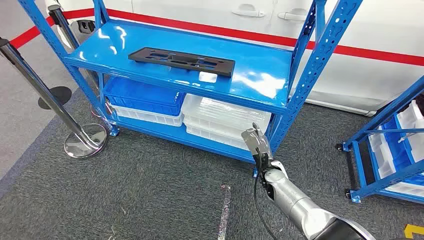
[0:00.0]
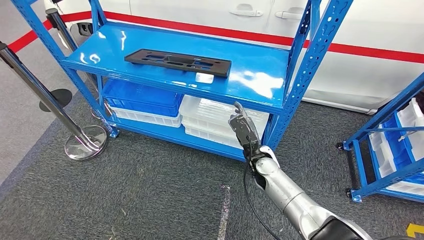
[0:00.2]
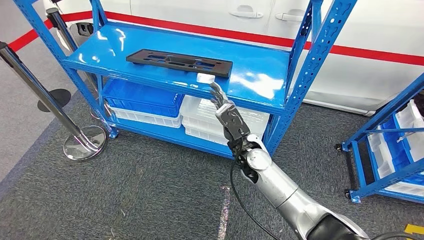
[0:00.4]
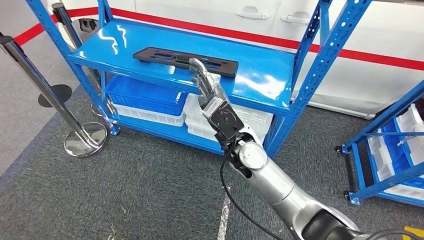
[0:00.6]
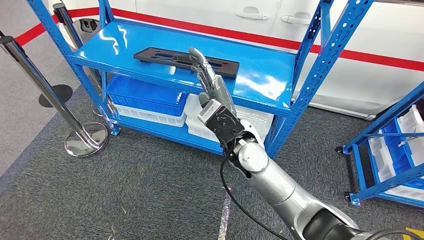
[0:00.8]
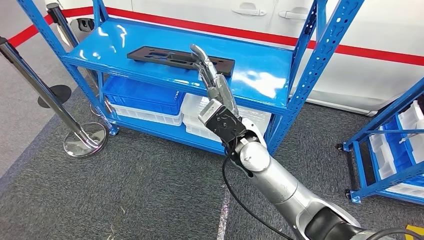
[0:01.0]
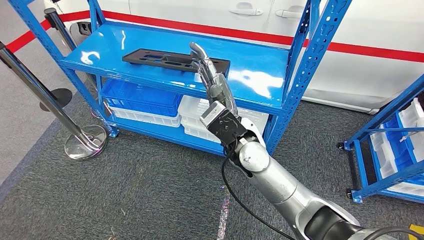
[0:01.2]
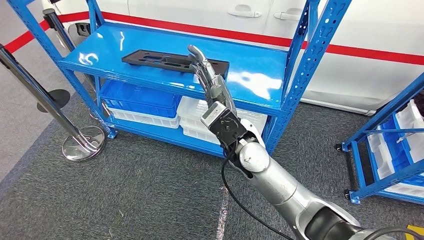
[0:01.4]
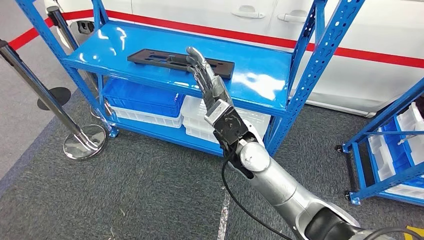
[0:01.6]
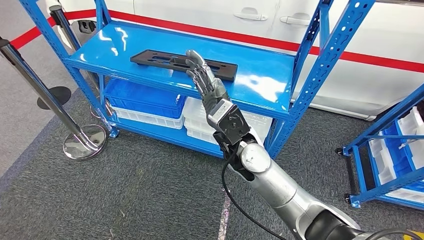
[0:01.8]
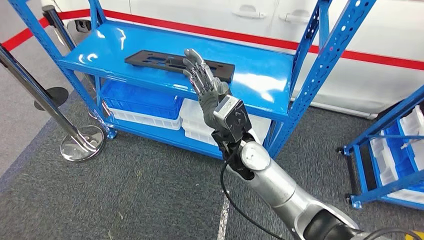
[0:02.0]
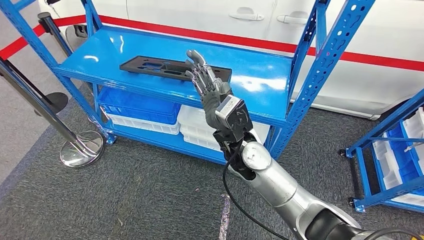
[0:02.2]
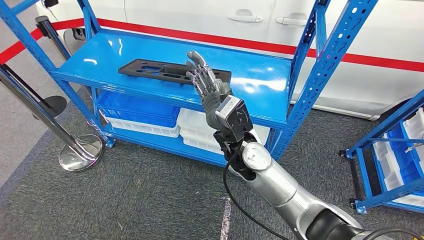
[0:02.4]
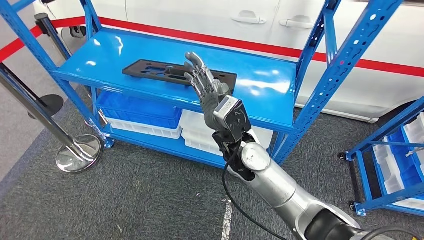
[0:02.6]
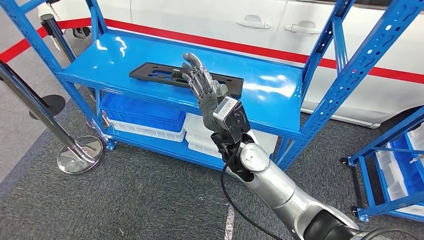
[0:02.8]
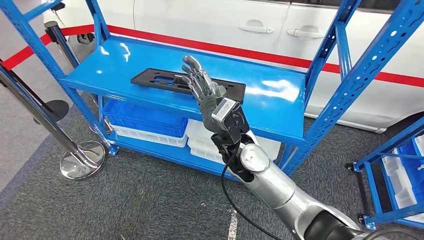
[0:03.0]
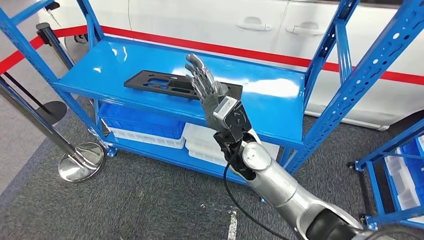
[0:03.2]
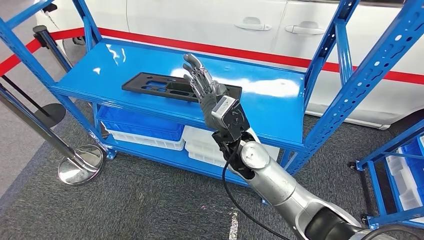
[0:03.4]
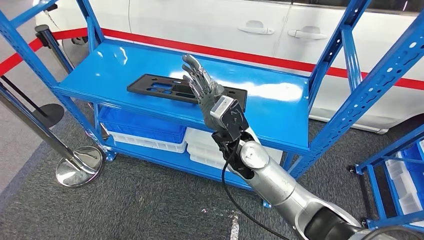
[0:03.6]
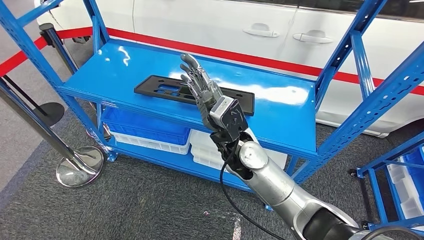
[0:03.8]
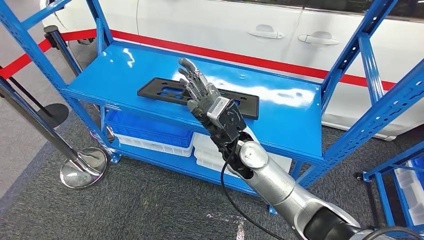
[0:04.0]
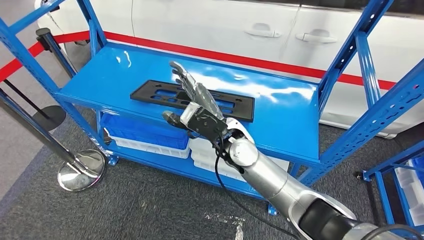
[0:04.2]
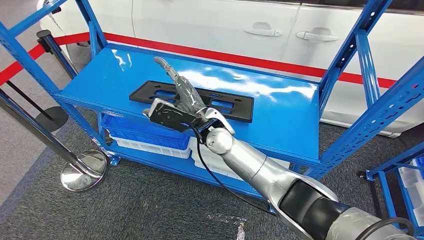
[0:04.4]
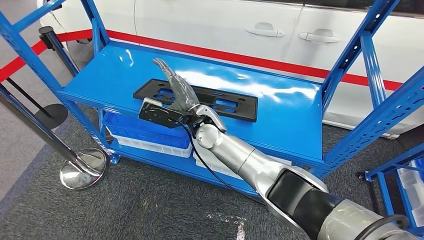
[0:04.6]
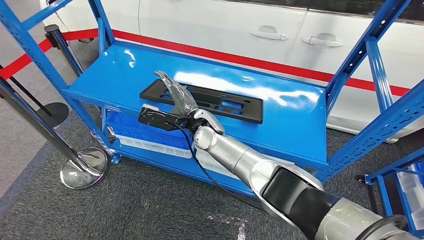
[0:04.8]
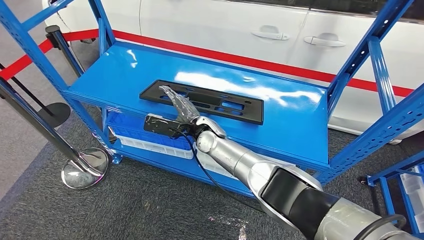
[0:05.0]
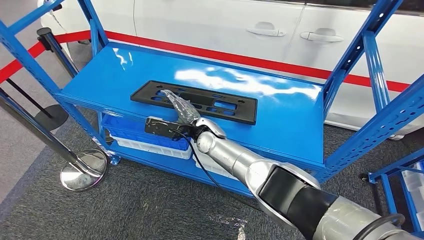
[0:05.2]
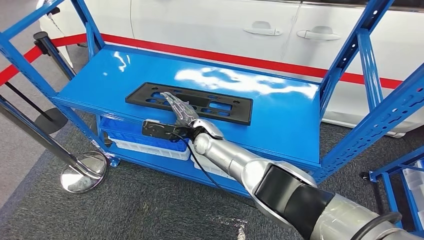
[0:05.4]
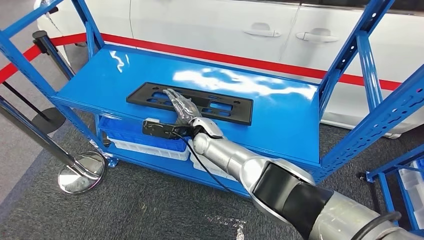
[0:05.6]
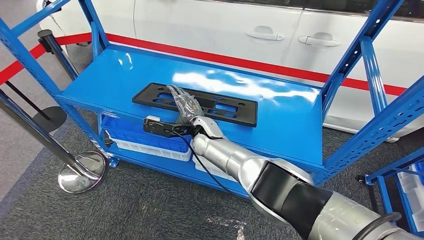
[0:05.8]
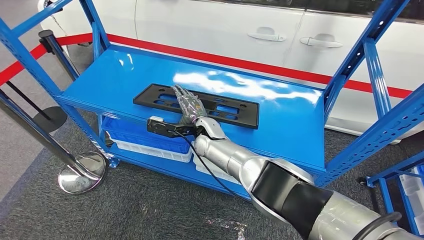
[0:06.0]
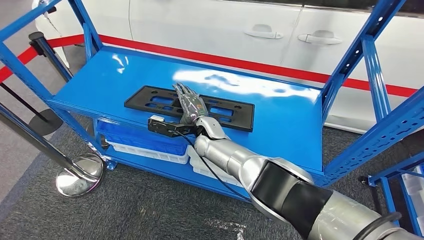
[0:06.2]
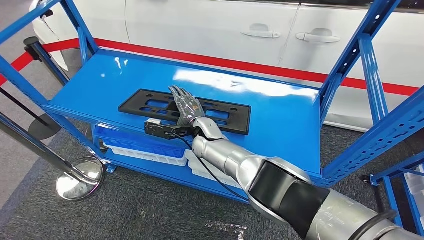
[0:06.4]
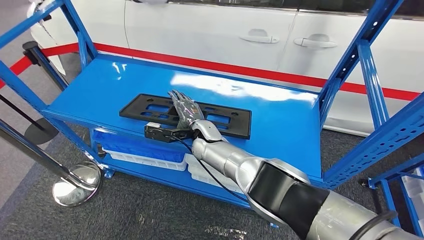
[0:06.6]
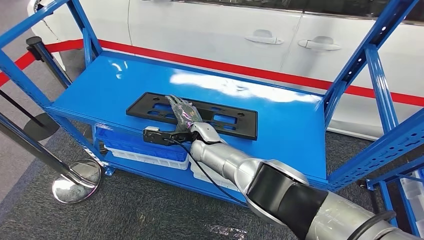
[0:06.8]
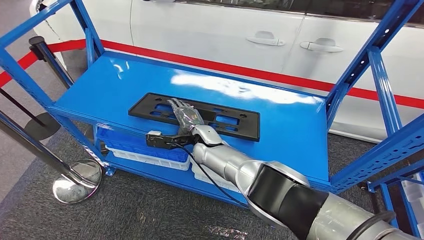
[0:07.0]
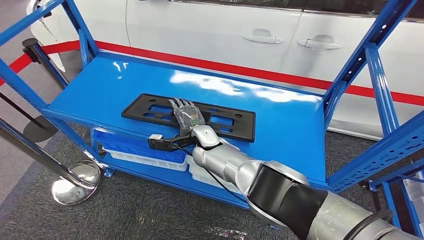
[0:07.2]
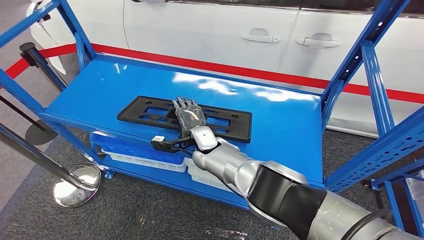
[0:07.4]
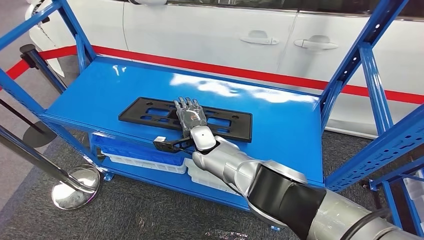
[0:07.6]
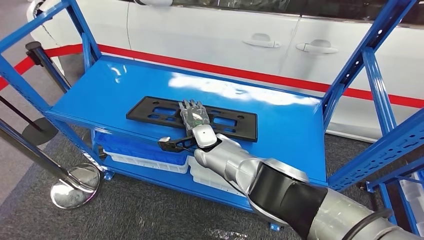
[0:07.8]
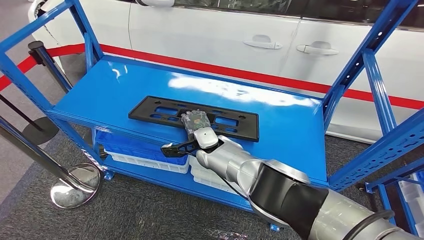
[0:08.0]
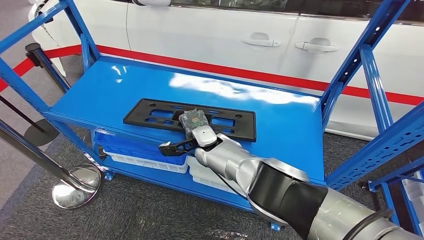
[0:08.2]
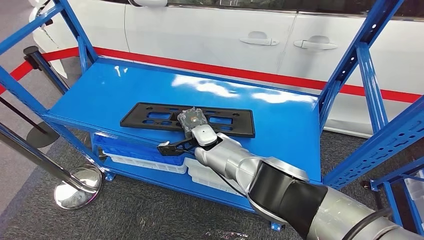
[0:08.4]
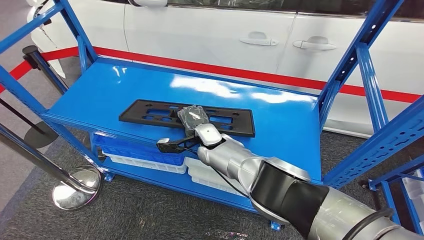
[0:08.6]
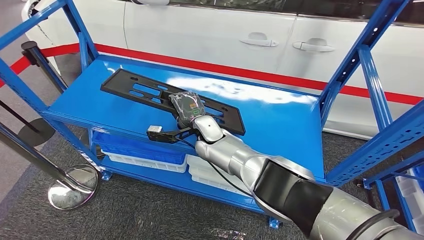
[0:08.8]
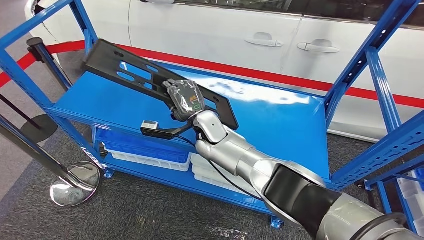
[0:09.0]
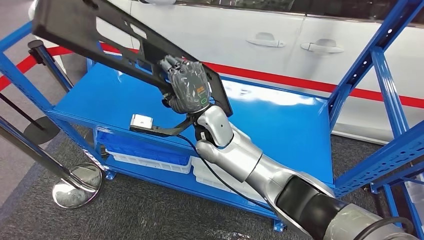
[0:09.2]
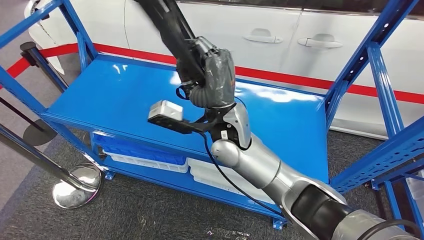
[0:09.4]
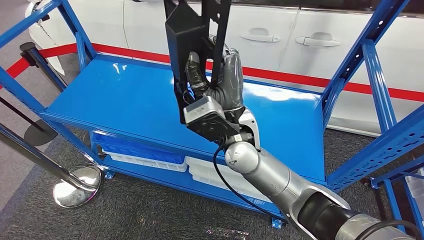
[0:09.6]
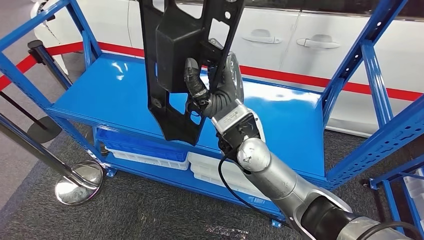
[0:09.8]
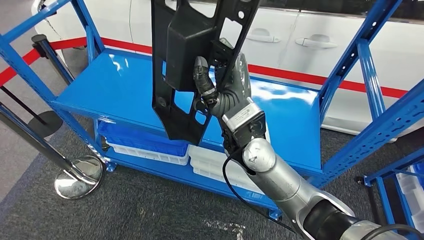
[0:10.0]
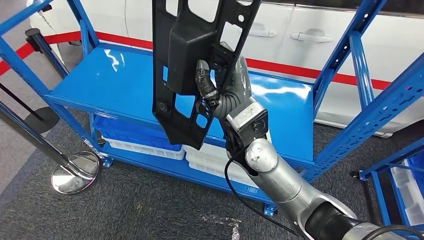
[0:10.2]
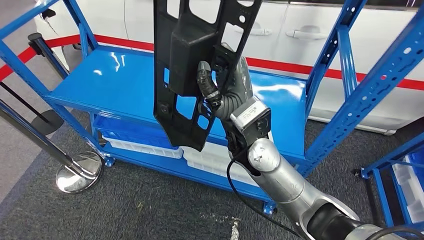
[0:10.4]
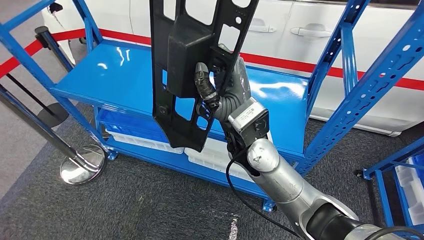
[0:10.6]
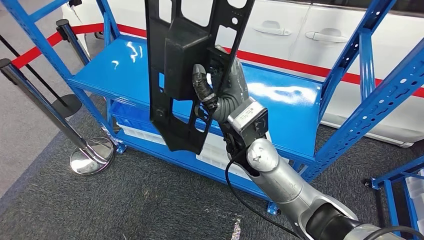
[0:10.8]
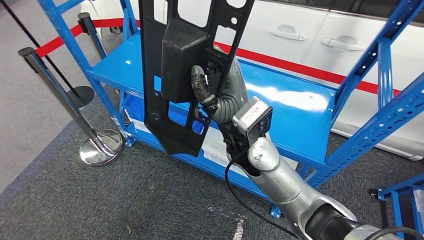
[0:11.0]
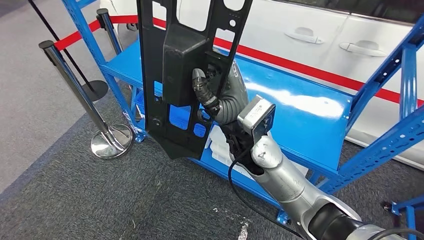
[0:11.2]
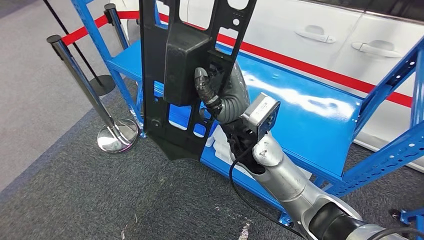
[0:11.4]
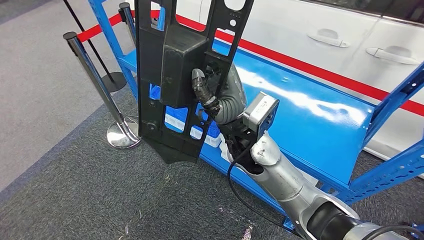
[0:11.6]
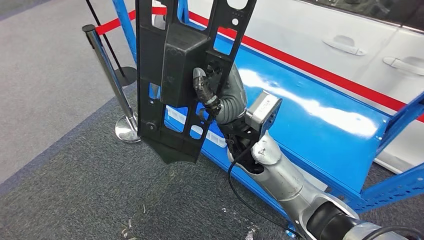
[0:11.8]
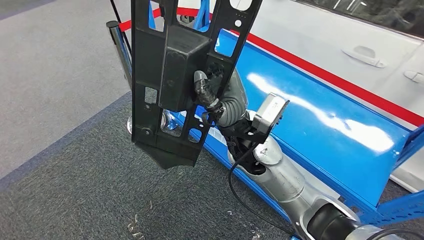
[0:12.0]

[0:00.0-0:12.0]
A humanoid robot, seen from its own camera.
Step, 0:00.0 to 0:11.4: Pick up the large parts from the shelf.

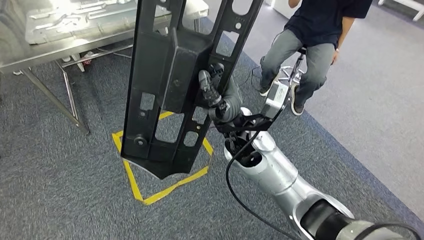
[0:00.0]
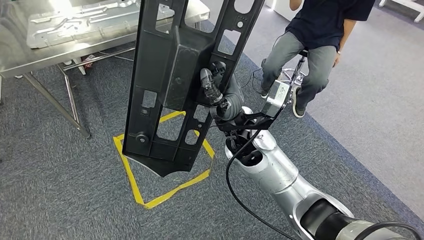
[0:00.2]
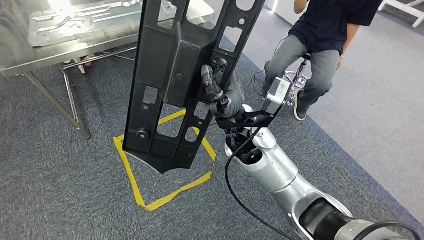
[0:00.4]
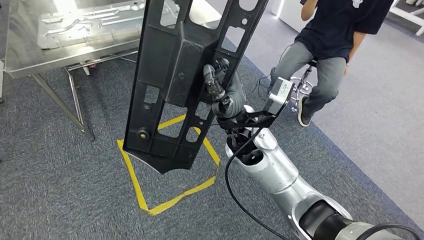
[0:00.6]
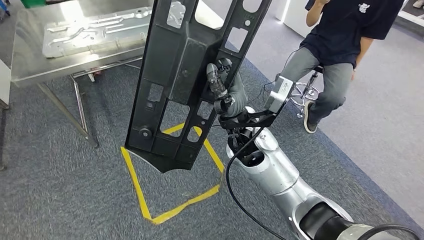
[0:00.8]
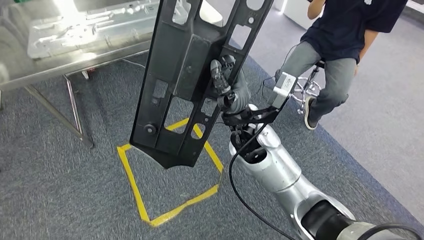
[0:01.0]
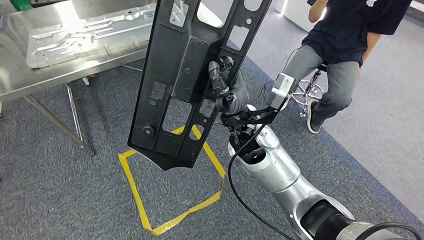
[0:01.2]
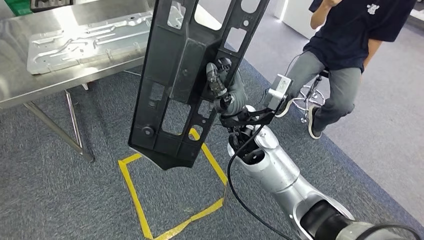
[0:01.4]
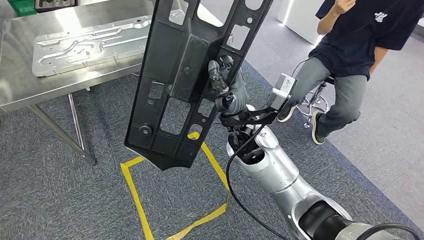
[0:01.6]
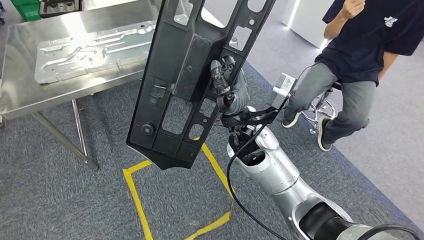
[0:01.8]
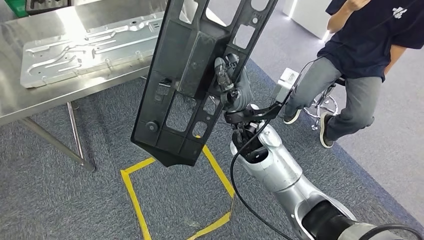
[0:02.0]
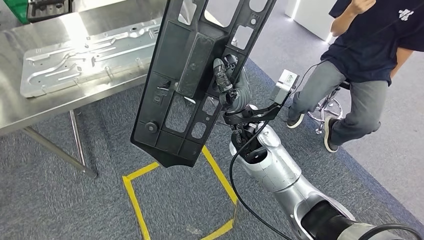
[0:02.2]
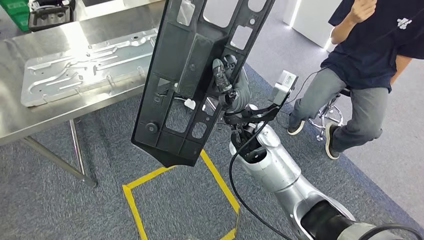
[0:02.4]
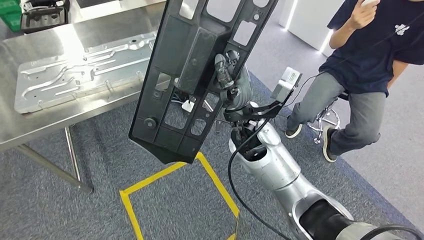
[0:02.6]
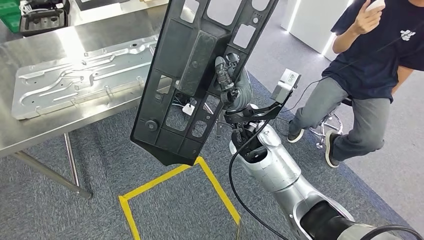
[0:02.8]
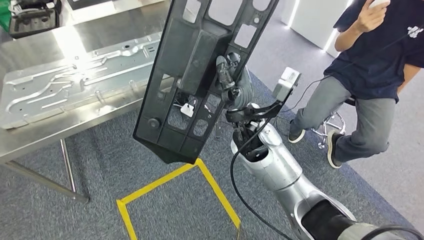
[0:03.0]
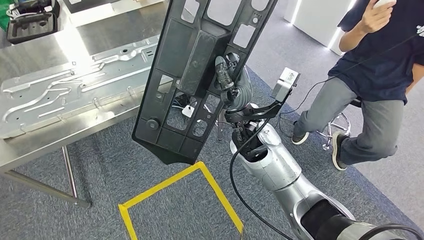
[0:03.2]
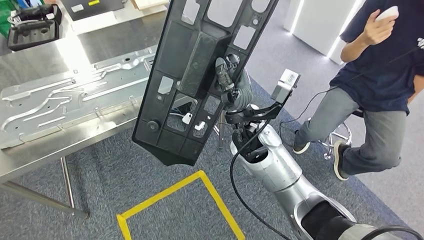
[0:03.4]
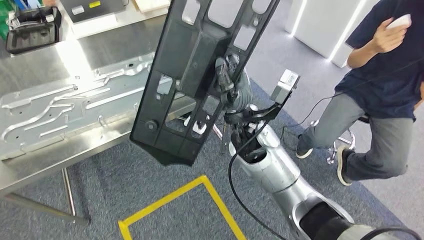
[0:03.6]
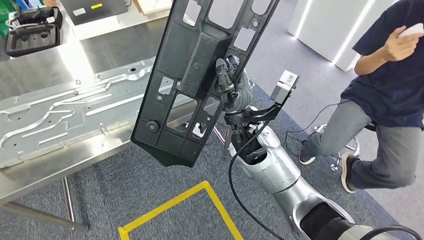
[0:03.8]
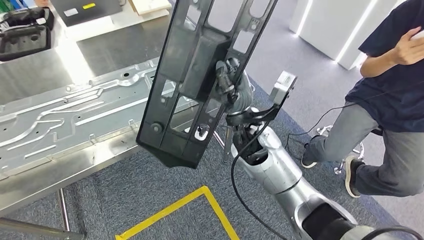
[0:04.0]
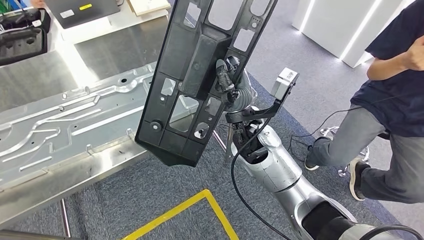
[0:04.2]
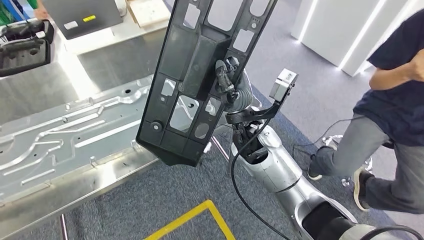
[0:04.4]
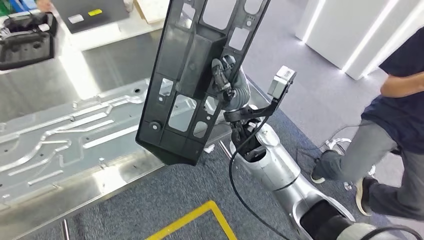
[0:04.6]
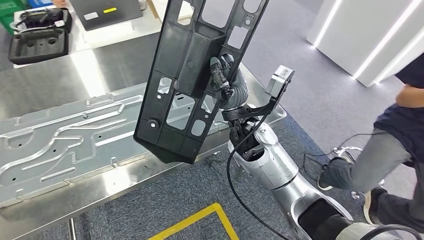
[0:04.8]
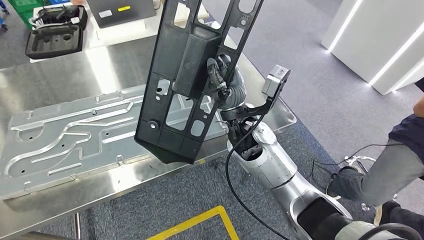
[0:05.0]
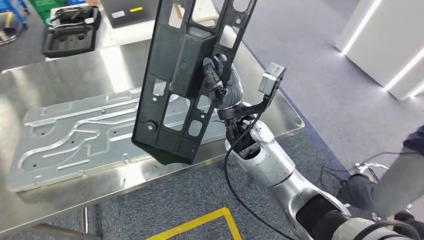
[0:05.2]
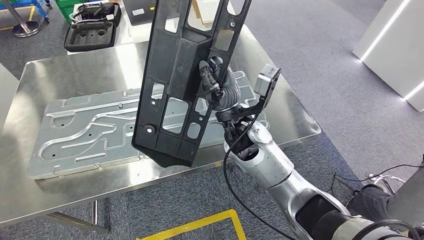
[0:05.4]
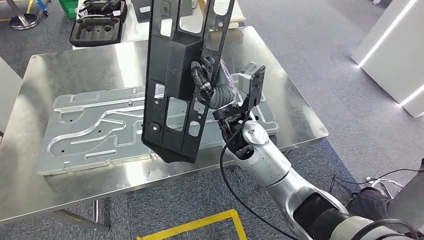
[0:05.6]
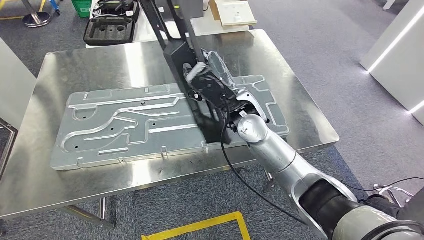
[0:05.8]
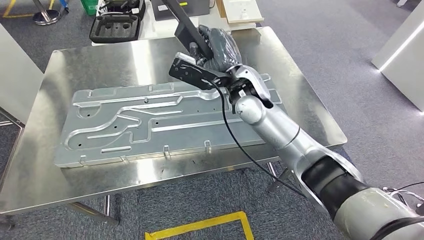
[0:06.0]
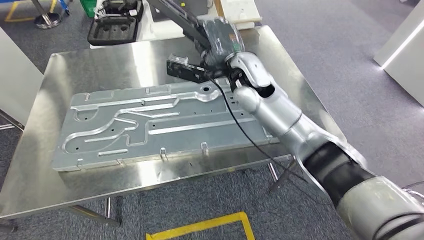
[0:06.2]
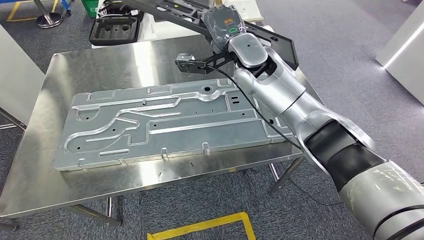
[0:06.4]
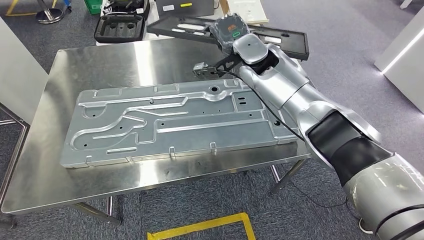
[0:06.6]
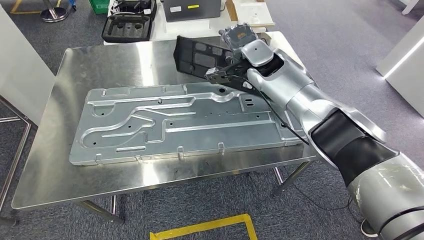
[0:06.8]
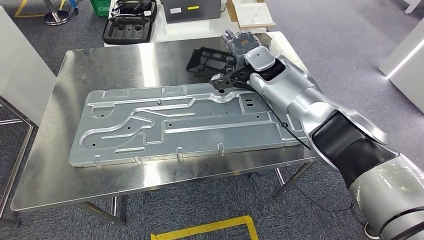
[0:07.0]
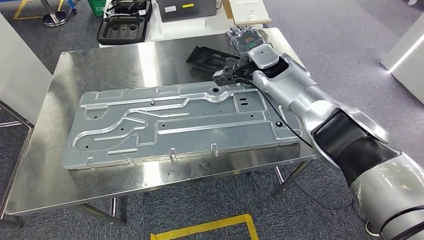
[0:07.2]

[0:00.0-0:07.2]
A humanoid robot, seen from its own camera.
Step, 0:00.0 to 0:03.4: Move the large parts to the workbench.
